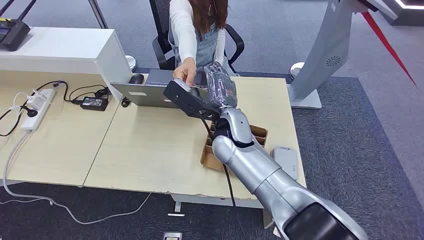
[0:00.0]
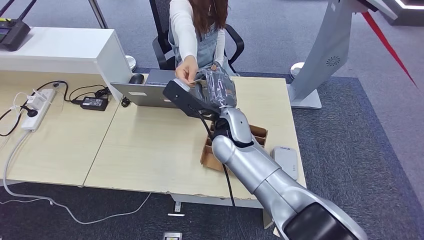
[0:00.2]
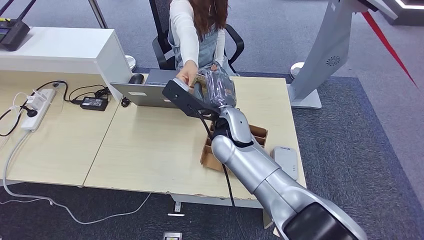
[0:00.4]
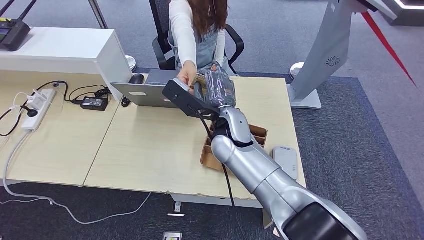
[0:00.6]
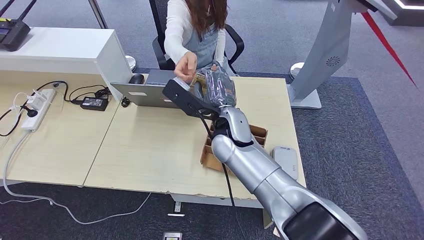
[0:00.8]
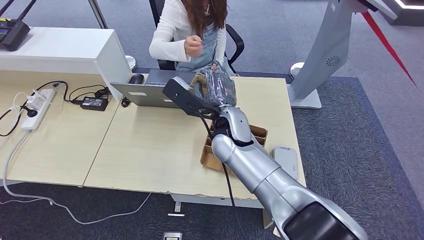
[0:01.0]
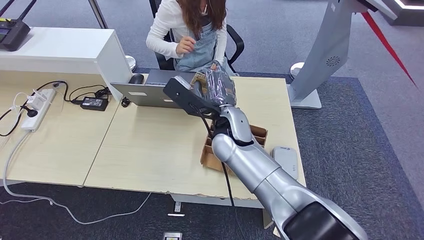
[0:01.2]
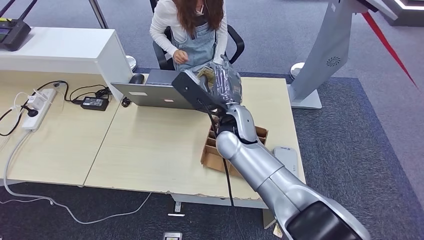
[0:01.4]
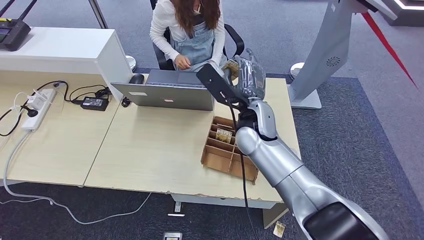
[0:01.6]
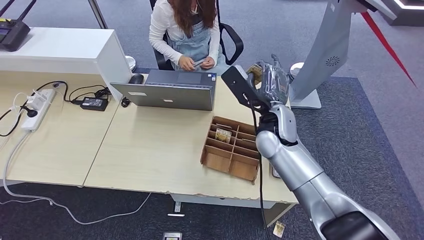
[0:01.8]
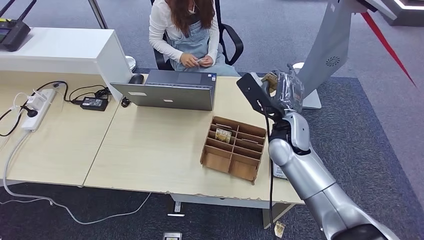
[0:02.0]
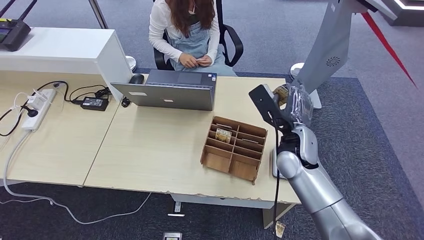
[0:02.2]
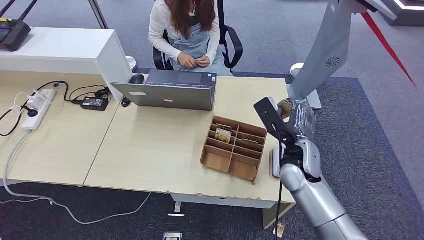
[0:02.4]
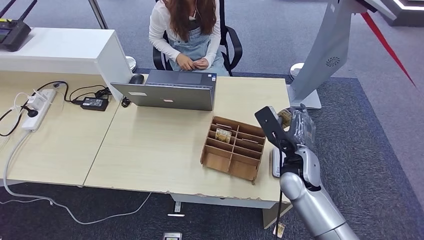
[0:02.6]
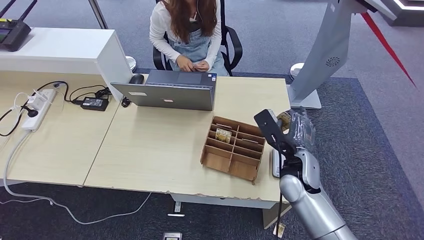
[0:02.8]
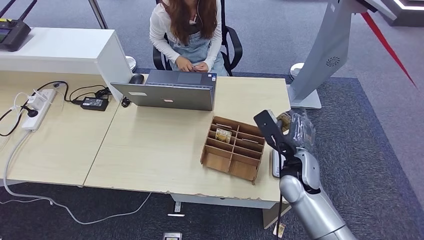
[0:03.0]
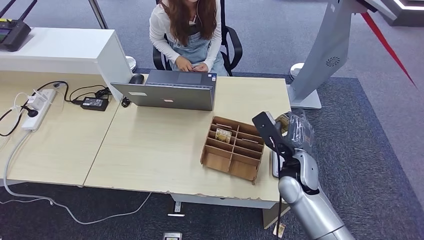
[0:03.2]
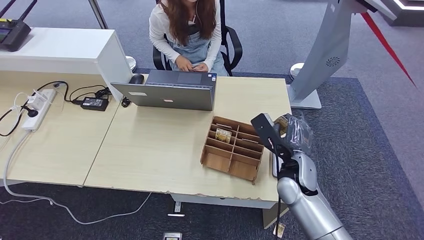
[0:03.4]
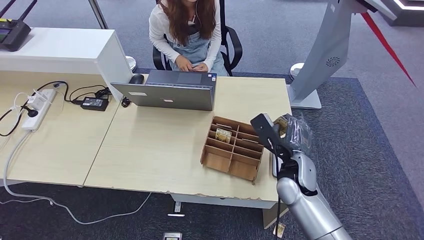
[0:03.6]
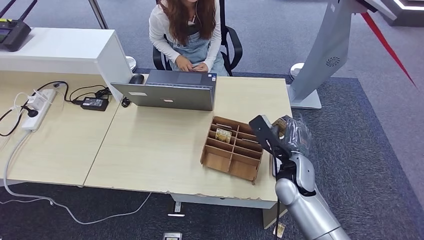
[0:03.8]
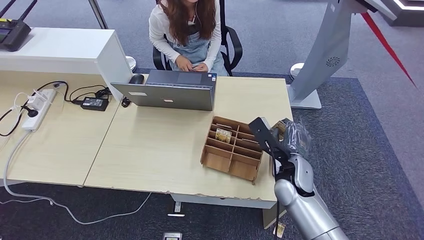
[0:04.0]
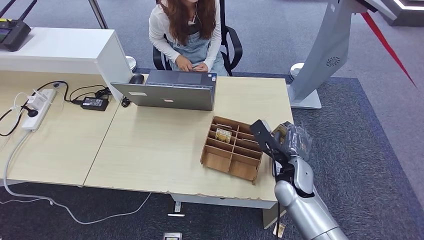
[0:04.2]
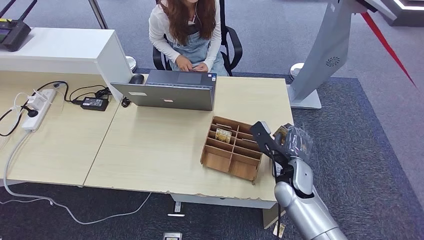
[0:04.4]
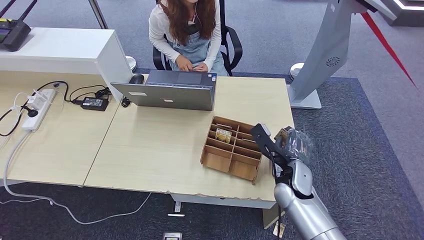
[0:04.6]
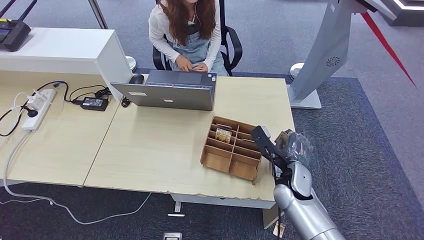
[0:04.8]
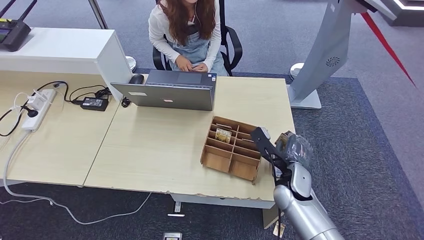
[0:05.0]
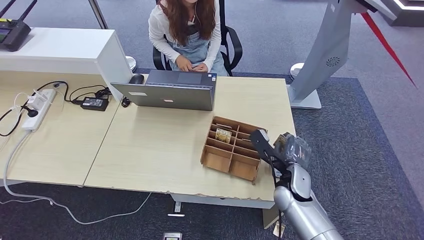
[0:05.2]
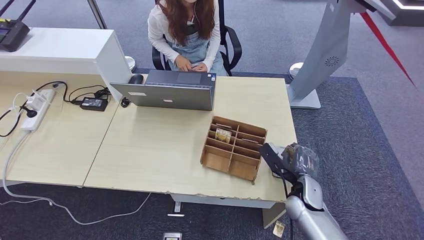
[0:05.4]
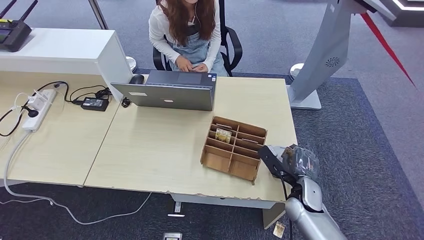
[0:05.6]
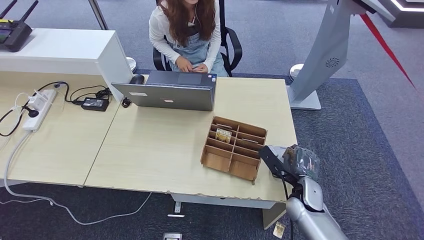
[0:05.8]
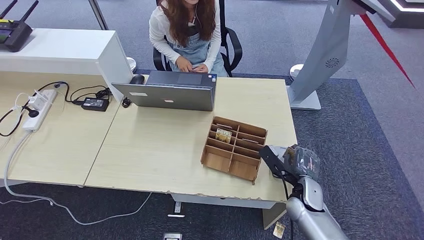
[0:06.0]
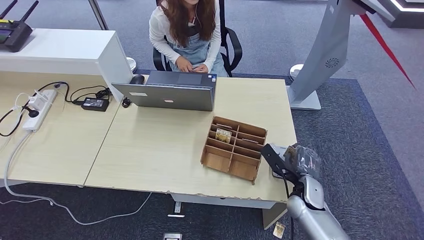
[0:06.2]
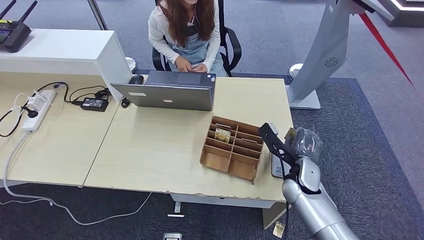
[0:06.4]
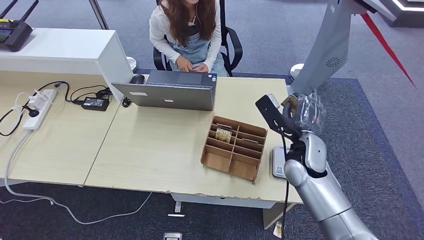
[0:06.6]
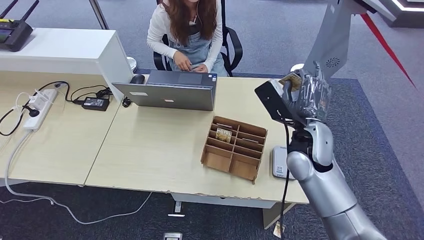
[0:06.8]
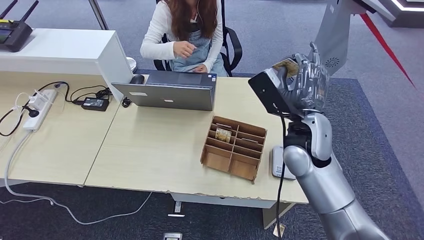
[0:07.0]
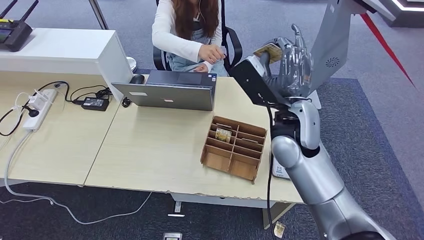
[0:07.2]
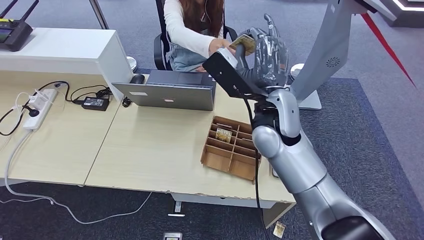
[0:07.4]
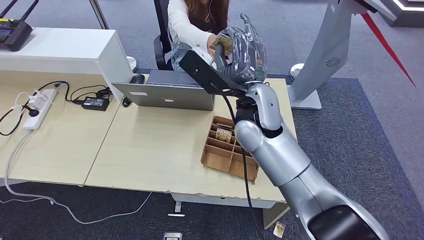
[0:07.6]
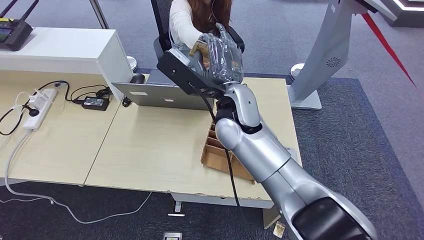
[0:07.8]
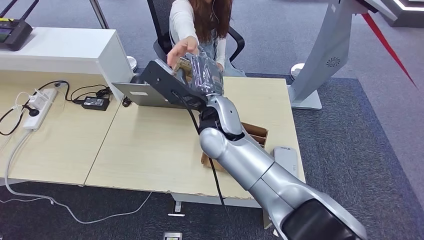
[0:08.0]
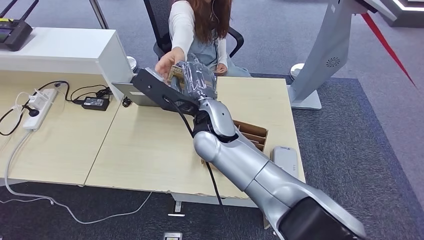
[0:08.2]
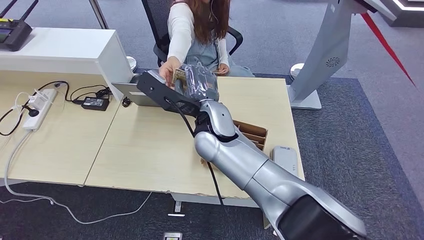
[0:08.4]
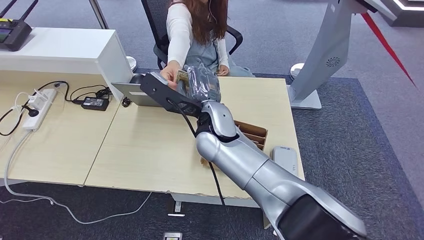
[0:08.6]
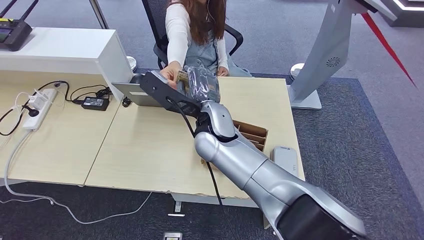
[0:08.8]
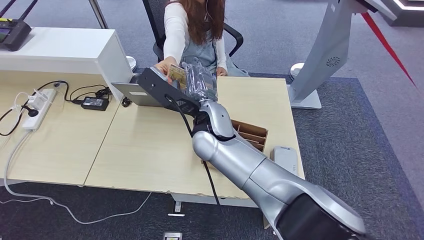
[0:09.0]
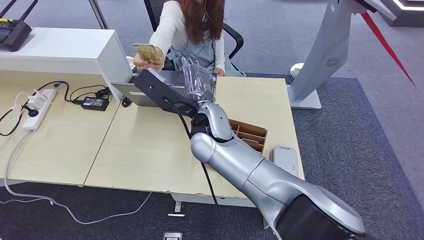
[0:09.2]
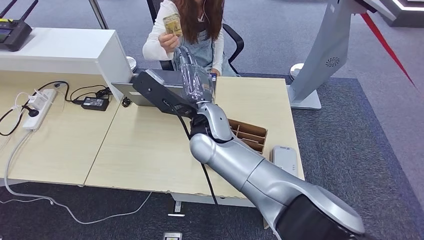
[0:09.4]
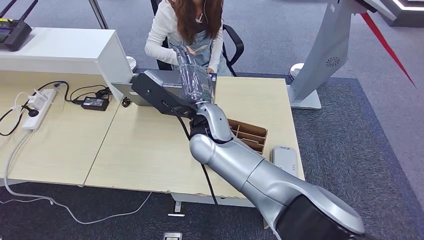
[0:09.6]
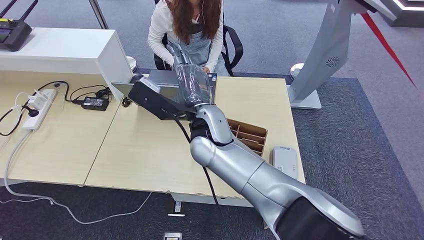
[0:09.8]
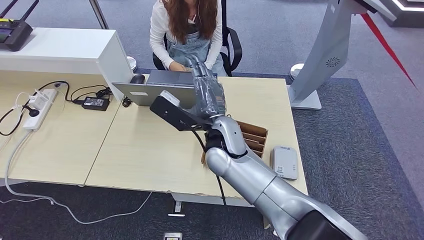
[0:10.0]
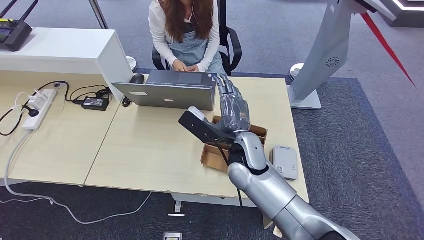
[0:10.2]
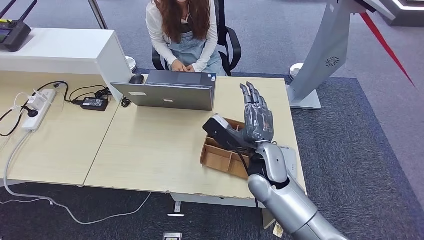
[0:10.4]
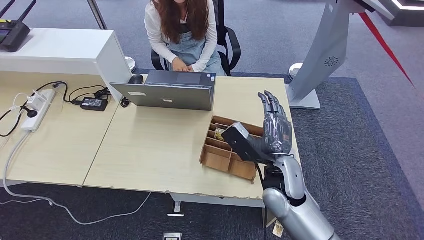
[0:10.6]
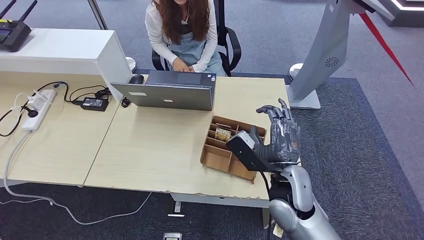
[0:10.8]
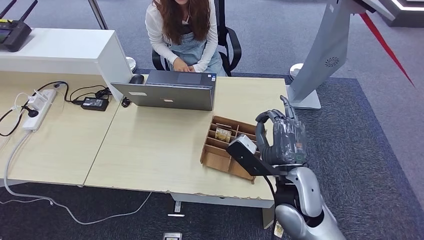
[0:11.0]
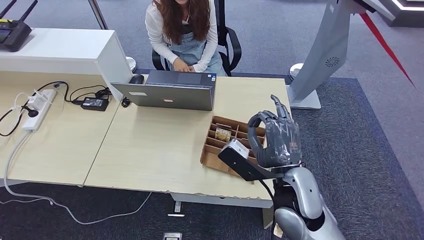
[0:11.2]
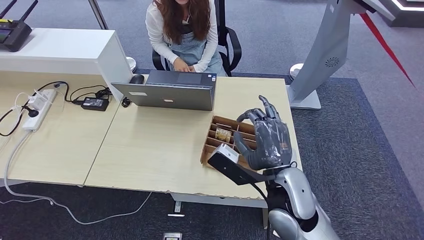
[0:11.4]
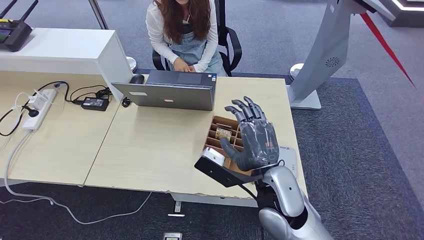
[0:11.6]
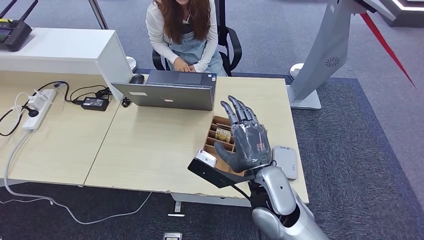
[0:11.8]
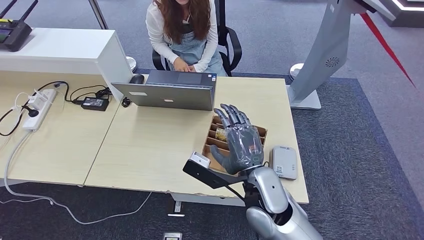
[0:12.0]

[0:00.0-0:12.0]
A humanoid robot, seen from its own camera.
Step, 0:00.0 to 0:01.2: Take the ID card from the person's hand.
Step, 0:01.4 to 0:07.0: Place the ID card on the card reader.
0:01.6 to 0:03.0: The right hand moves to the right, downward and backward, roughly 15 cm.
0:03.0 to 0:04.4: The hands stay close to where they were, moving slightly.
0:04.4 to 0:06.0: The right hand travels downward and to the right by approximately 10 cm.
0:06.0 to 0:07.6: The right hand is displaced upward and to the left by roughly 35 cm.
0:09.0 to 0:10.4: The right hand moves to the right and downward, roughly 15 cm.
0:10.4 to 0:12.0: The right hand moves backward, about 5 cm.

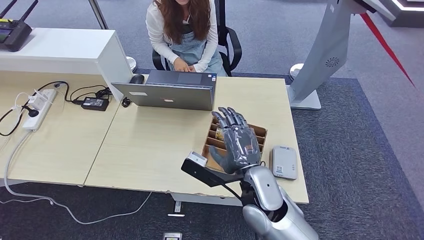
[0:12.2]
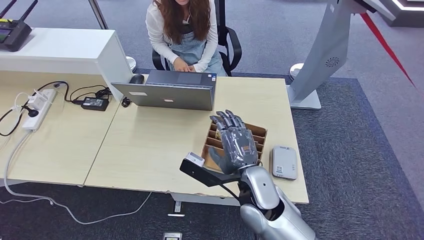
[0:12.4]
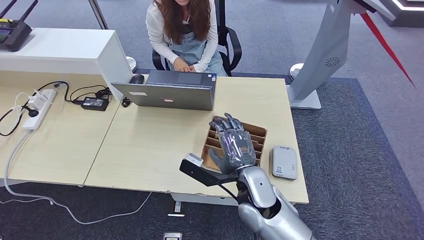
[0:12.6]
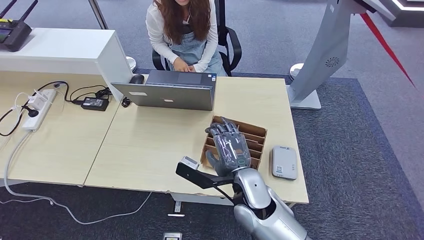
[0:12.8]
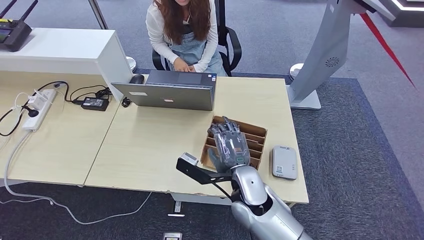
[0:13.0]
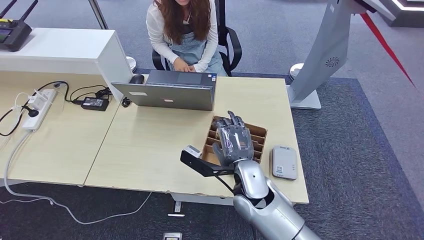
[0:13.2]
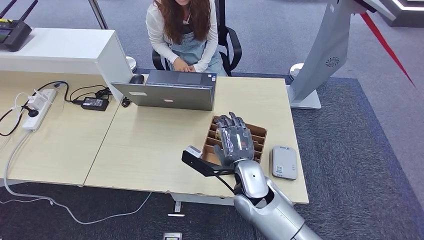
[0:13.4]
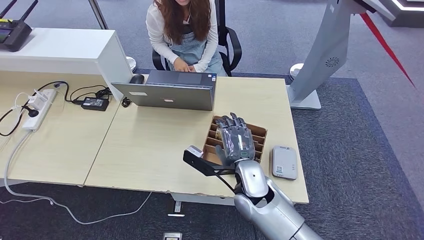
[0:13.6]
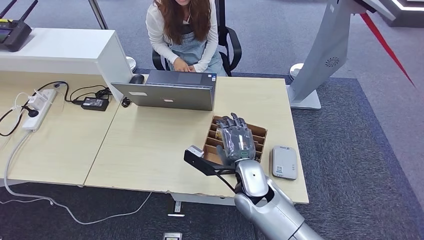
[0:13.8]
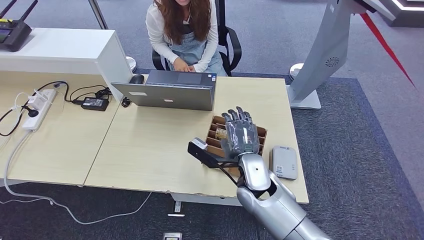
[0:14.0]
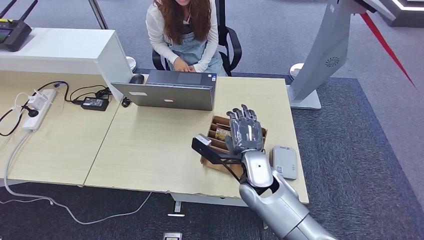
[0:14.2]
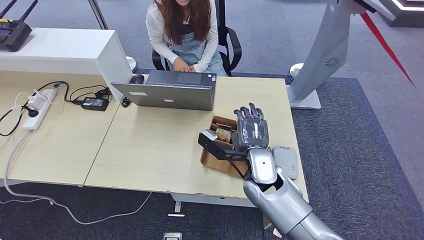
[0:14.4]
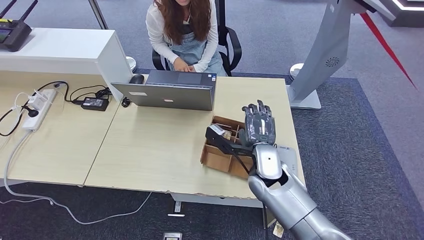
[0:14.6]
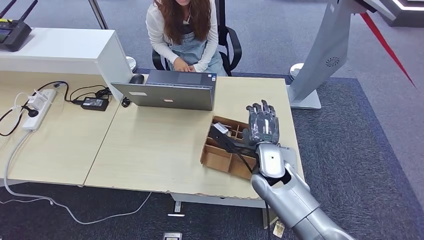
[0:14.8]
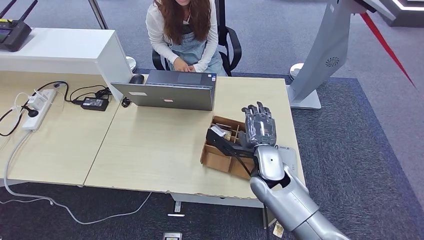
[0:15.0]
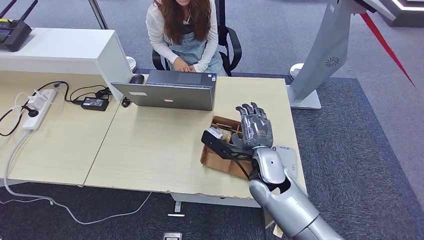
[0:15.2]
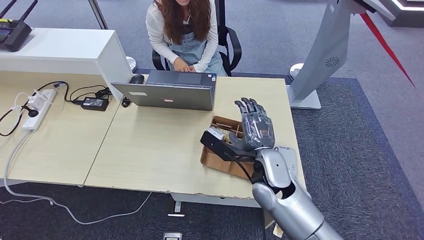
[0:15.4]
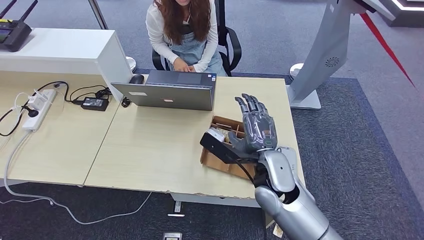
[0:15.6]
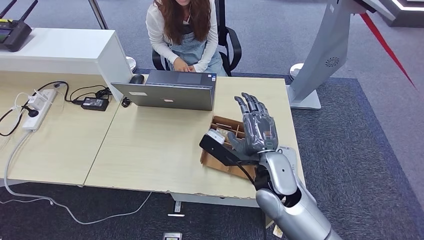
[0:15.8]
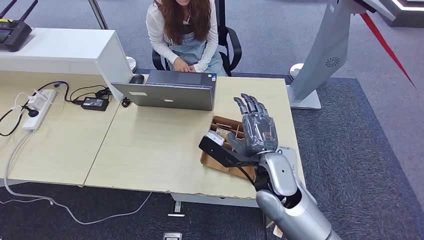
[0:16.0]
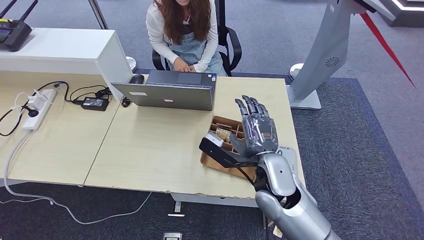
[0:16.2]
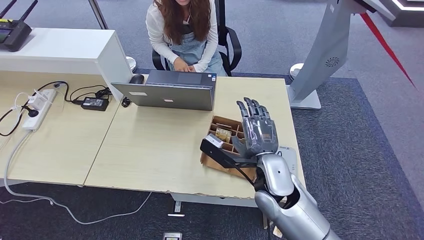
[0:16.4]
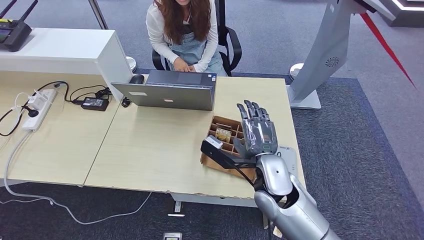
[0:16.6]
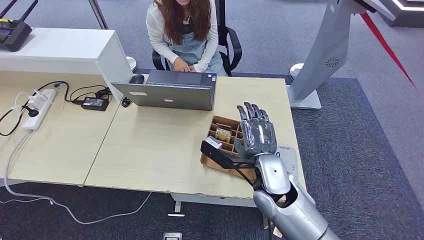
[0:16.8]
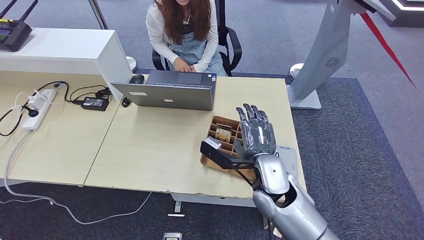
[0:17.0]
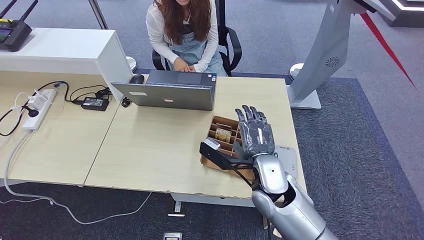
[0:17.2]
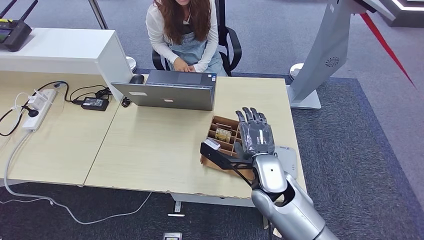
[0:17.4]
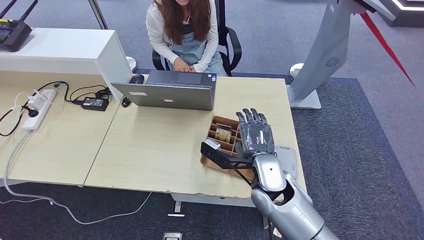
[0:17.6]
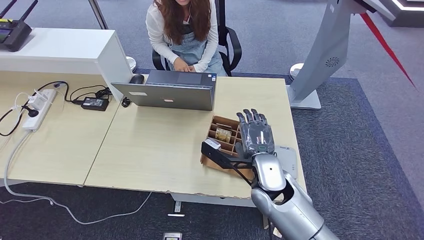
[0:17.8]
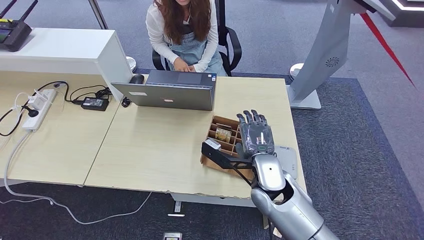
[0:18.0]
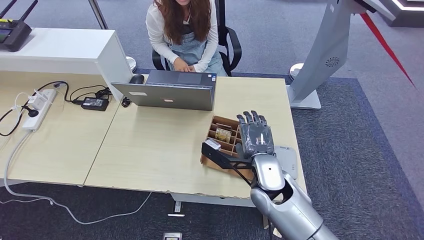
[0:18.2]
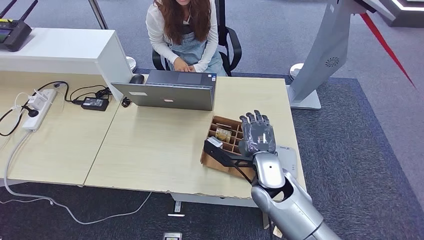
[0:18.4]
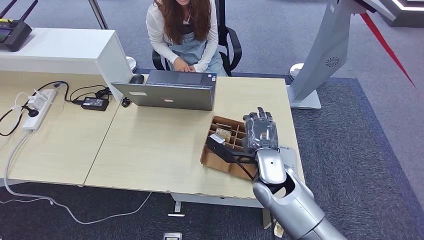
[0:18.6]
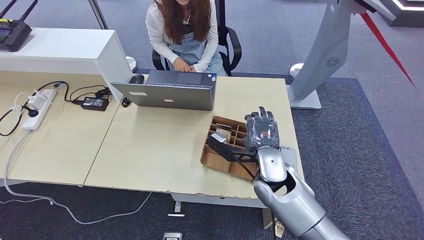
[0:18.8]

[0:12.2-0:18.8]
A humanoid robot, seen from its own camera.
Step, 0:12.2 to 0:14.6: Hand the ID card to the person.
0:12.2 to 0:13.8: The right hand moves about 5 cm.
0:13.8 to 0:15.4: The right hand shifts by roughly 5 cm.
0:15.4 to 0:17.2: There are only small adjustments of the hands.
0:17.2 to 0:18.8: The hands stay close to where they were, moving slightly.
